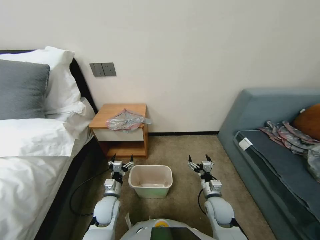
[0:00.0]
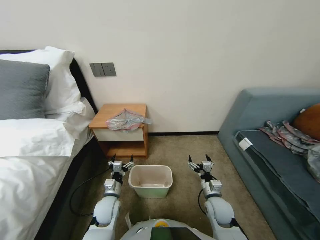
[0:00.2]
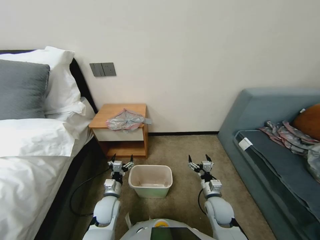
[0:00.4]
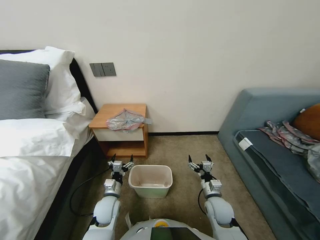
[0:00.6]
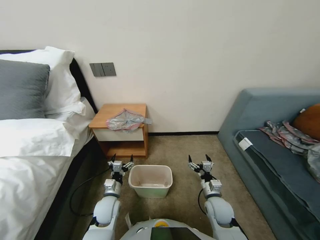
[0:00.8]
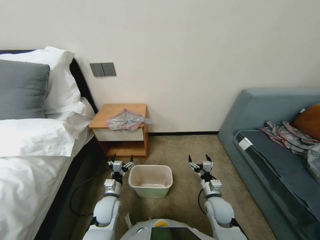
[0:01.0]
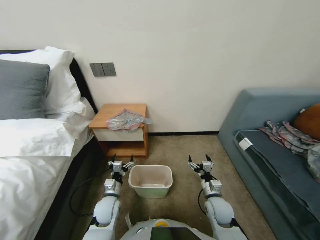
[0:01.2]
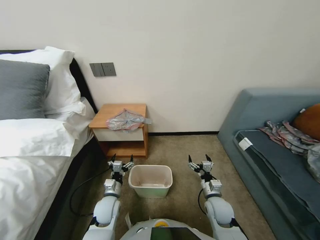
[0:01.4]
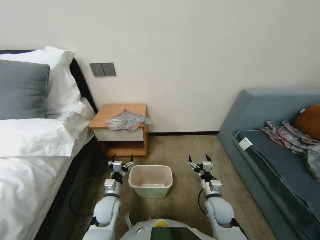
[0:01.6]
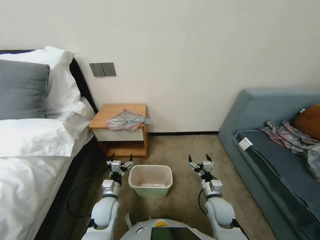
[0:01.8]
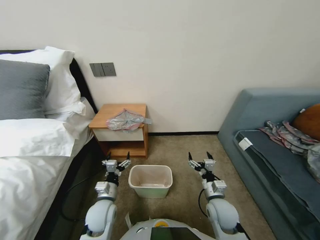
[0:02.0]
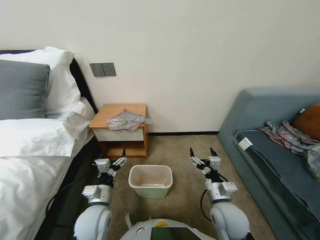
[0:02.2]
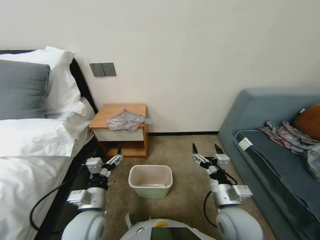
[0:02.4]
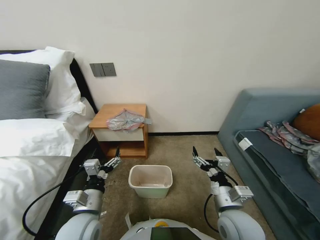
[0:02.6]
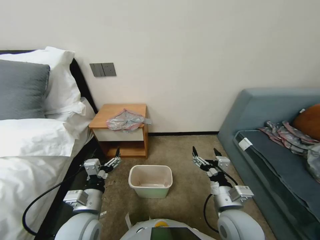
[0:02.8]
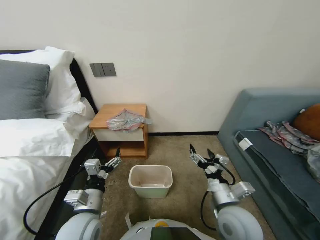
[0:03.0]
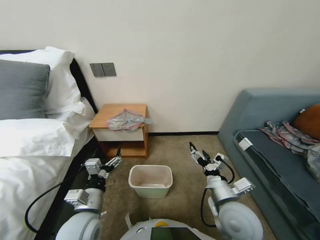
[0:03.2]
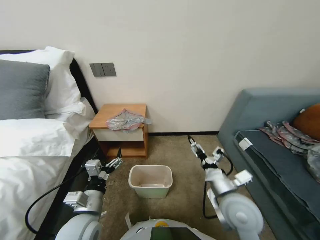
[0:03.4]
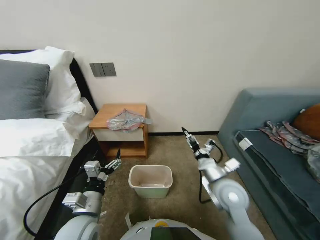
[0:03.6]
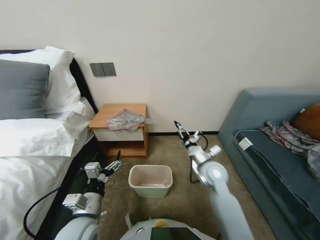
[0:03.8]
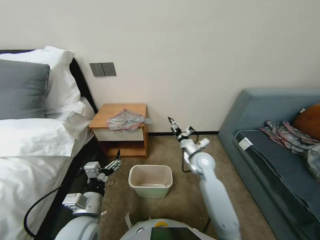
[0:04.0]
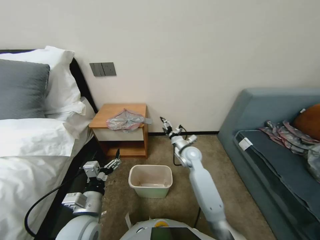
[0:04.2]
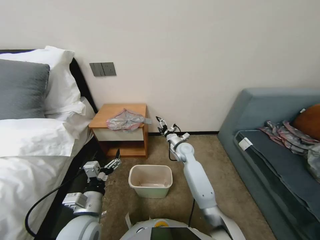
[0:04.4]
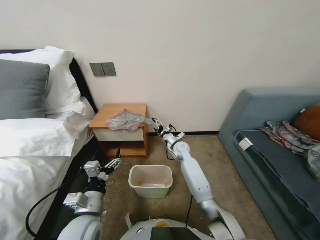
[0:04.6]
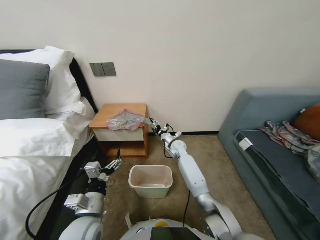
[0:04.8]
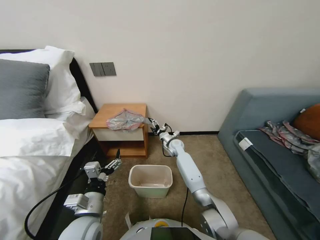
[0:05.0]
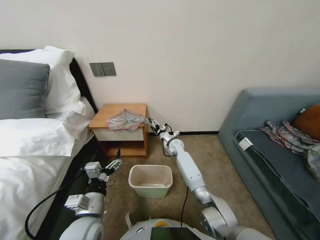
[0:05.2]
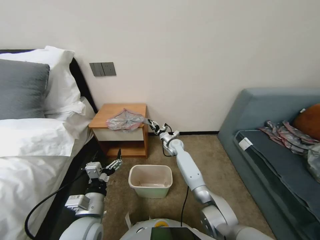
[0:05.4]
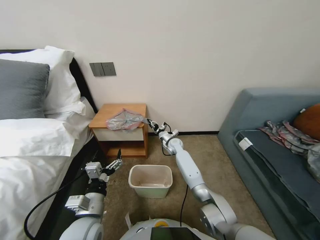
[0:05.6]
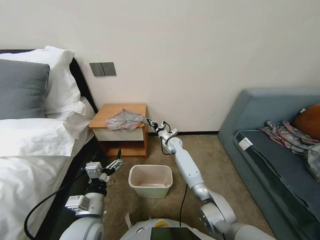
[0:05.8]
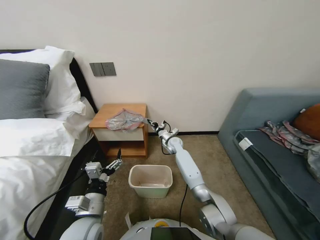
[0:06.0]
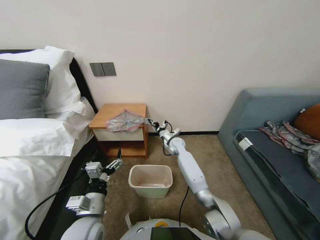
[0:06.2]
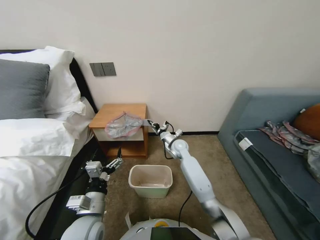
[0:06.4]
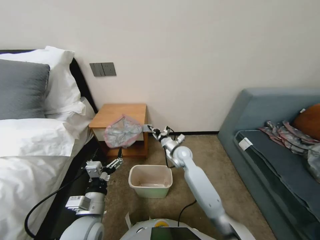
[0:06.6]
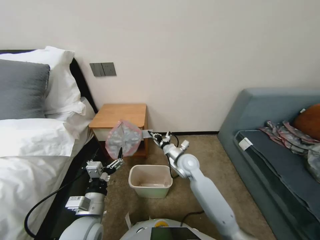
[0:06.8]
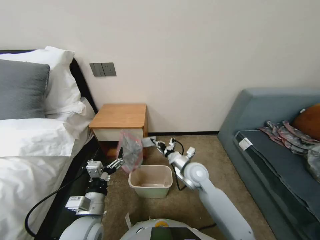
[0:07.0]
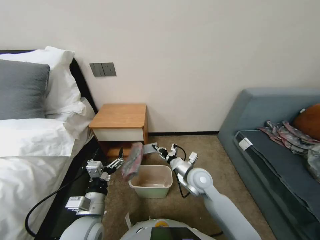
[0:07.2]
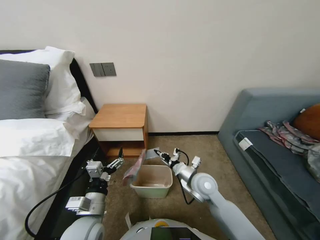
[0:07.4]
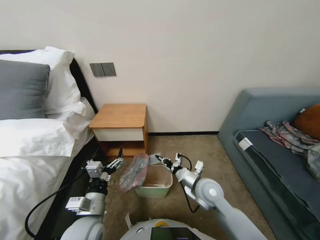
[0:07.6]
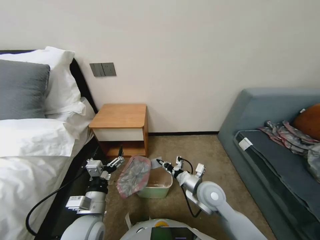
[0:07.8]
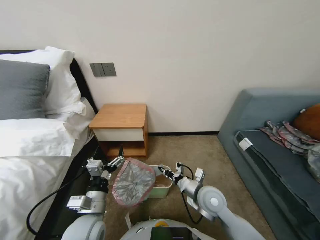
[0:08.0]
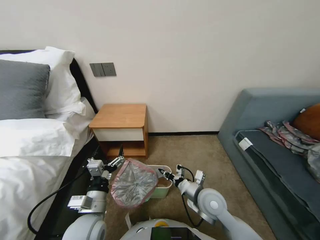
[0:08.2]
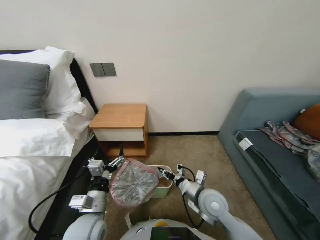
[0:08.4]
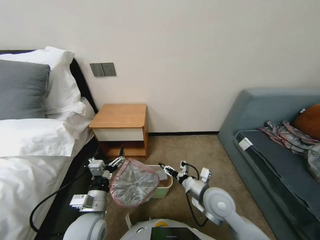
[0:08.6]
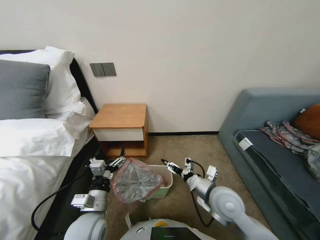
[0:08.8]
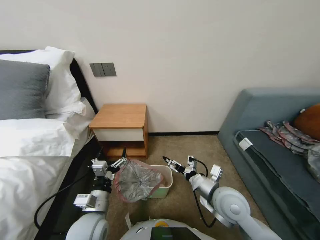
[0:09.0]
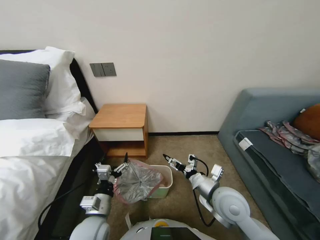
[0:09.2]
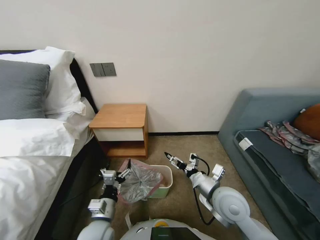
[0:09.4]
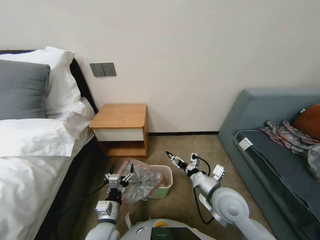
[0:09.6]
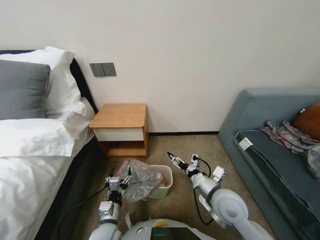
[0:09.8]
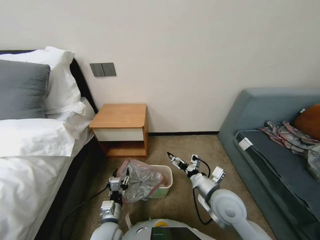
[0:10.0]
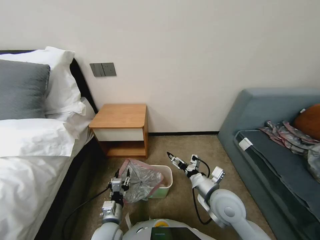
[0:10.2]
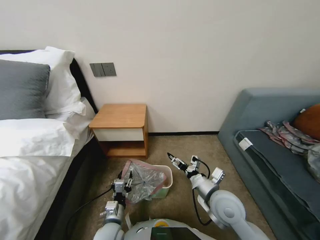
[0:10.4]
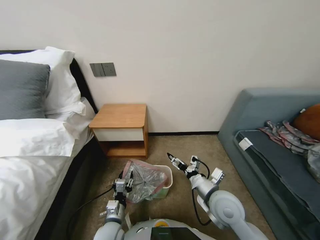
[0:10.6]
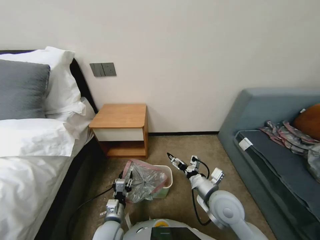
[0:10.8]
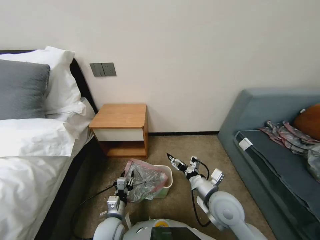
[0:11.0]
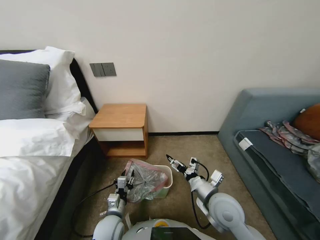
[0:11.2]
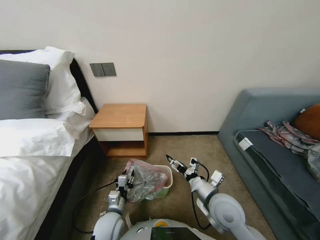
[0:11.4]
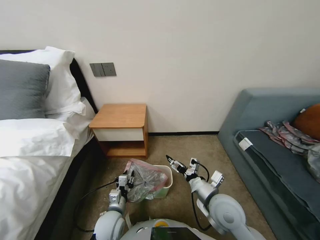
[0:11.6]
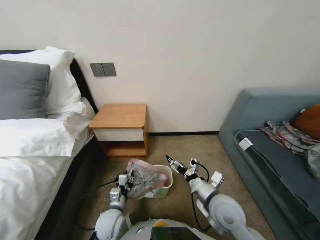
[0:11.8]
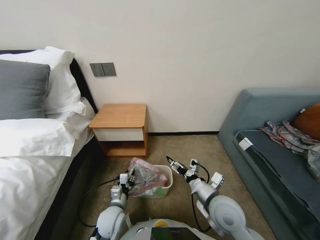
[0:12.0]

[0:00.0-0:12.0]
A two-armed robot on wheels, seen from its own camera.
Task of the whole recording: Pick up the garbage bag from the table and place it over the trash can.
0:01.6 to 0:03.0: Both grippers travel together upward and backward, roughly 15 cm.
0:03.0 to 0:04.4: The right gripper goes approximately 30 cm forward.
0:04.4 to 0:06.0: The right gripper shifts roughly 10 cm forward, and closes.
0:06.0 to 0:07.6: The right gripper goes about 25 cm backward.
0:07.6 to 0:09.0: The right gripper heads backward, covering about 5 cm, and opens its fingers.
0:09.0 to 0:10.4: The left gripper goes about 10 cm downward, and closes.
0:10.4 to 0:12.0: The grippers make only small movements.

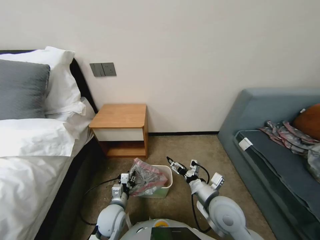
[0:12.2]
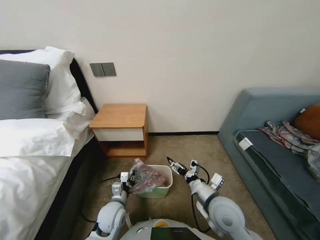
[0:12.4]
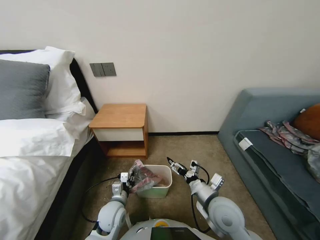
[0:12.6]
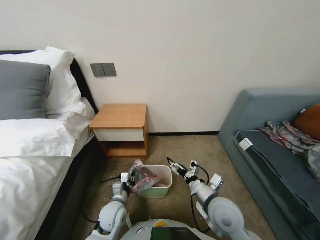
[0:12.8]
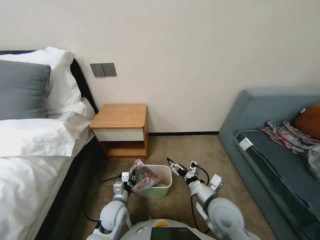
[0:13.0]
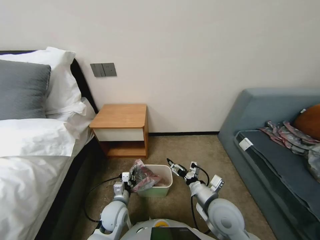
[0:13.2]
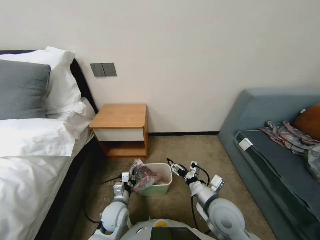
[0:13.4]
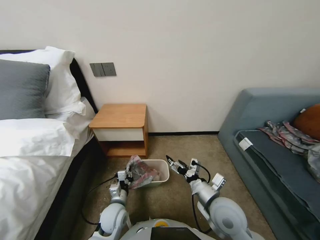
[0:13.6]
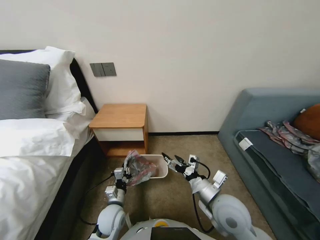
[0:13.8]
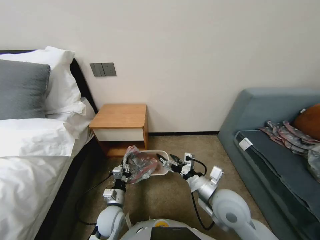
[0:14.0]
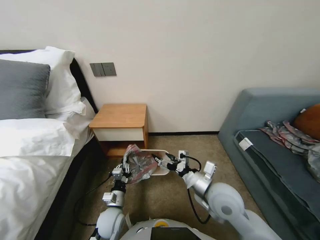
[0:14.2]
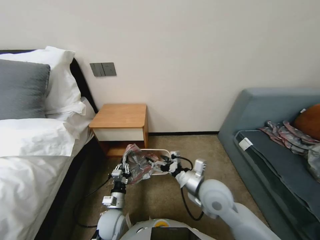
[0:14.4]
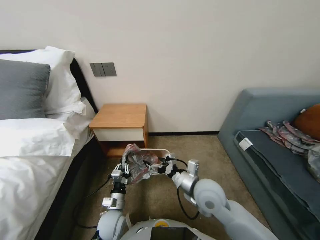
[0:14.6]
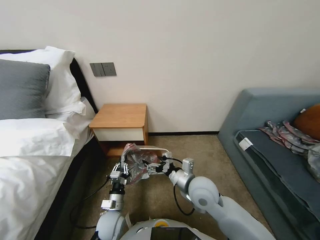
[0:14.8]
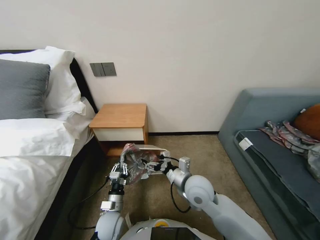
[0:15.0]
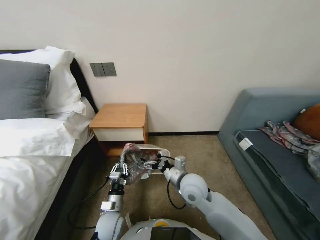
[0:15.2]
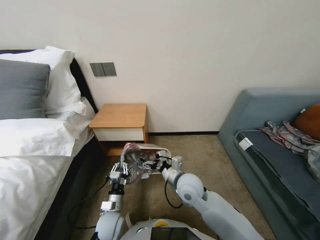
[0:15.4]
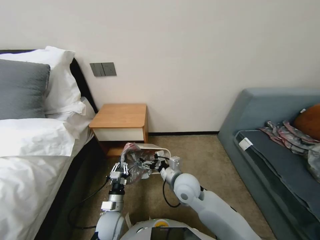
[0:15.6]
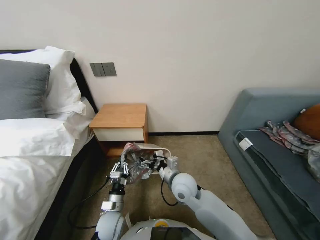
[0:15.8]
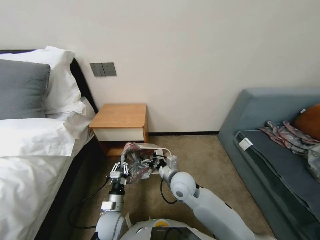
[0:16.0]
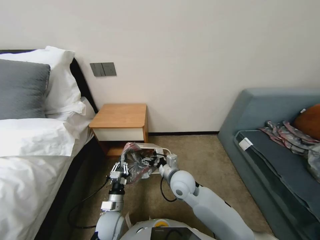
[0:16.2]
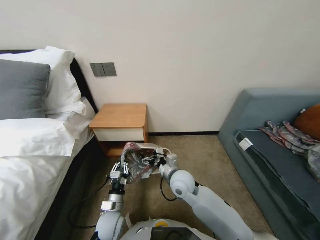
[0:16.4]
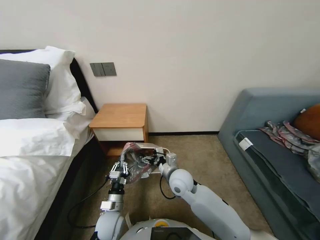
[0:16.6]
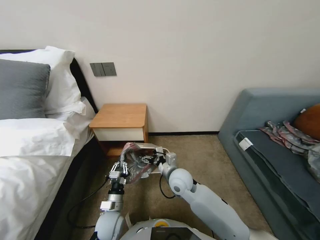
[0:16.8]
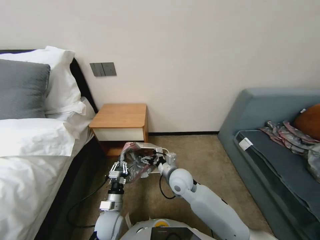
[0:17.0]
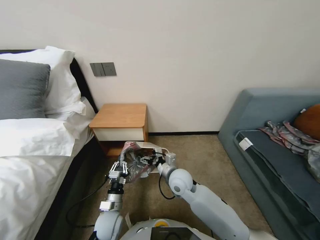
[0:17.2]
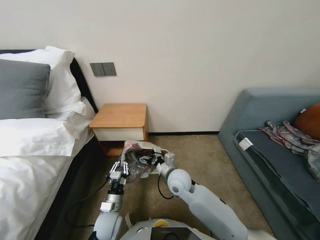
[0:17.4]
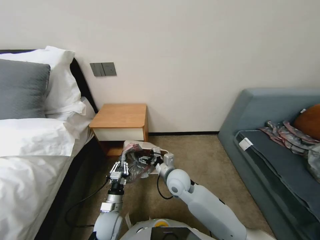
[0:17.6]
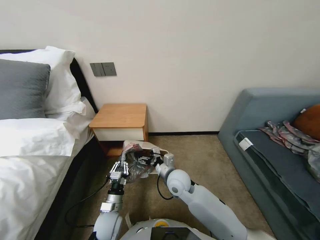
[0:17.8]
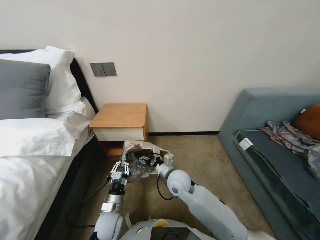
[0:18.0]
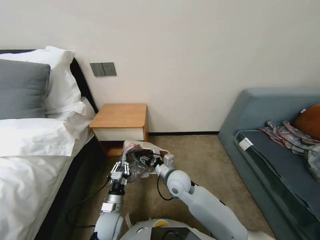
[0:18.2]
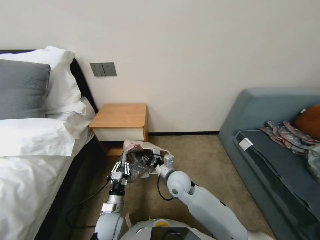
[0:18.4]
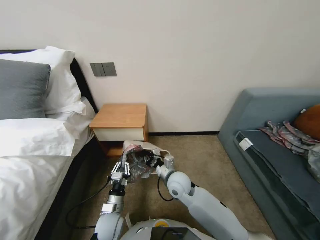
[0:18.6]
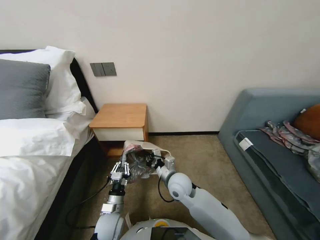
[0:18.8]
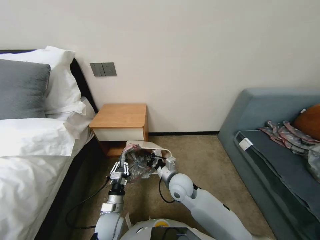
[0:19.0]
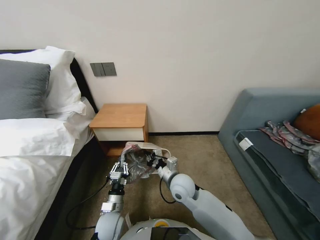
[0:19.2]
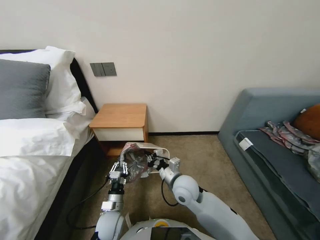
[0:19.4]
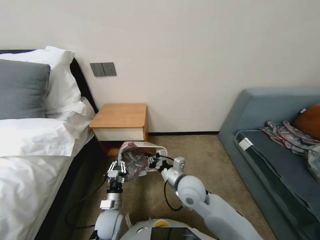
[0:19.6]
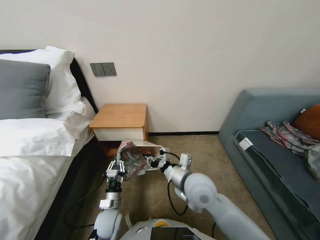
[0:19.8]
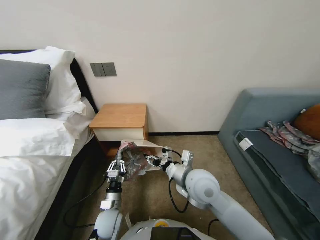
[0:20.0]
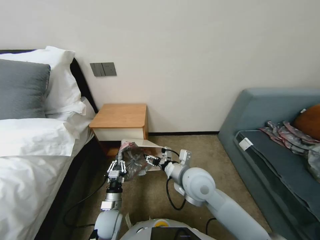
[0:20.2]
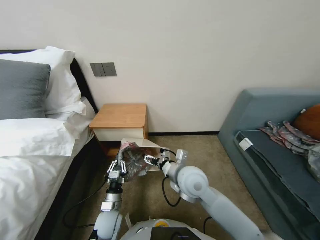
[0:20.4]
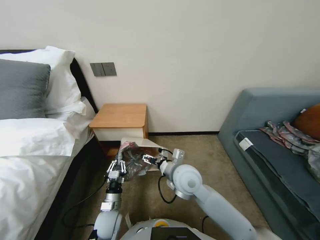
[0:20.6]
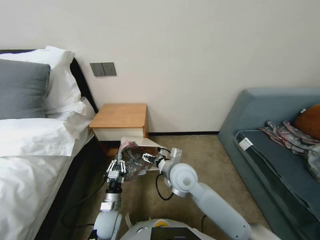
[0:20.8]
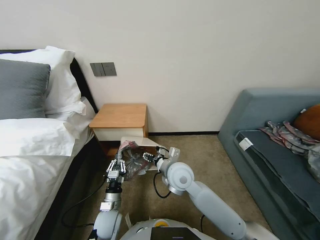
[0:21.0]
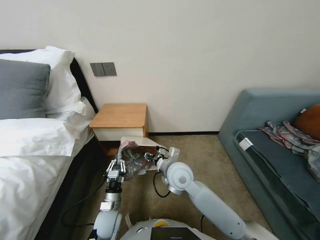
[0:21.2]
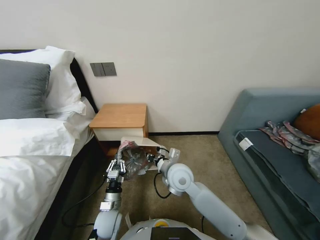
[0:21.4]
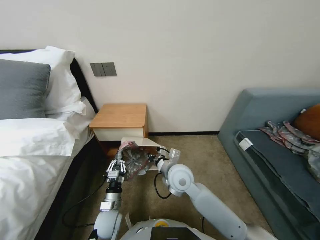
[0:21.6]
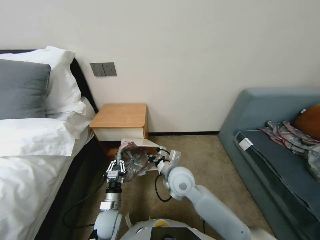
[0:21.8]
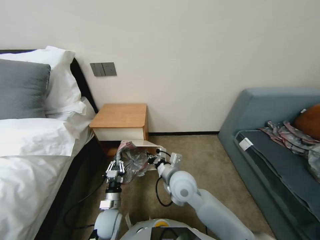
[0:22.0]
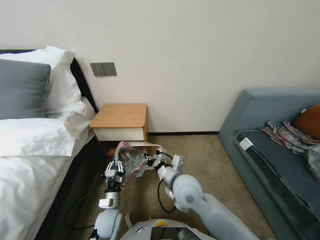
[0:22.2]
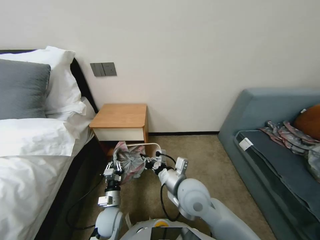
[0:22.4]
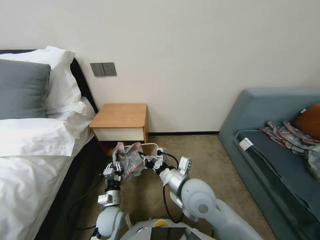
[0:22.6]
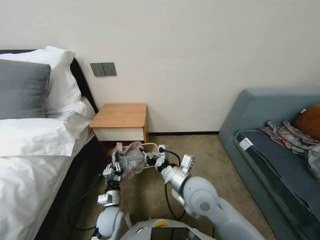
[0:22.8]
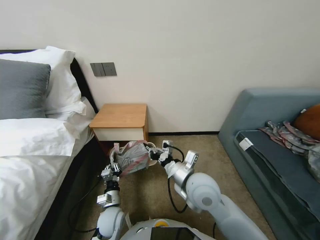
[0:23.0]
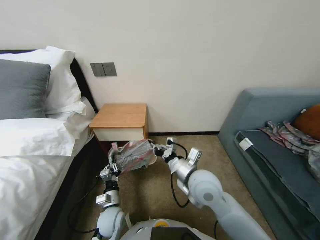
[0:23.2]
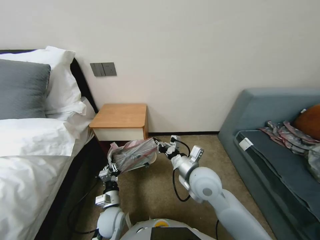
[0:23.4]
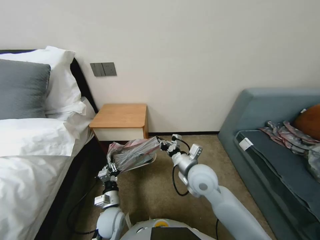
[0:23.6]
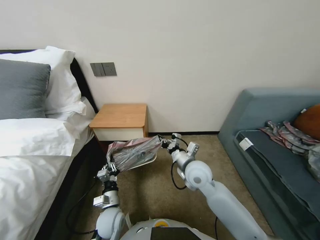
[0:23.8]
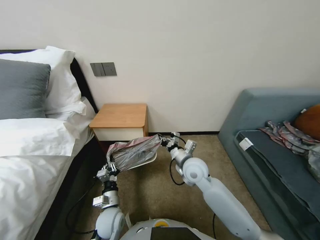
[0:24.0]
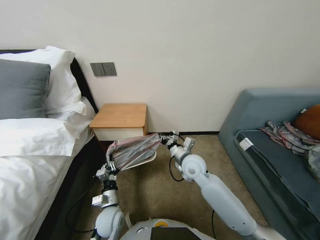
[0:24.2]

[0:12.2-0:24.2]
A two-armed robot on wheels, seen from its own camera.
Task of the whole recording: Pick up the garbage bag from the table and place it over the trash can.
0:12.2 to 0:13.8: The grippers make only small movements.
0:13.8 to 0:15.2: The right gripper goes some 10 cm to the left and forward.
0:15.2 to 0:16.6: The right gripper shifts by some 5 cm.
0:16.6 to 0:18.2: The grippers stay close to where they were, moving slightly.
0:18.2 to 0:19.8: The right gripper goes approximately 5 cm upward, and closes.
0:19.8 to 0:21.2: The right gripper changes place by about 5 cm, and opens up.
0:21.2 to 0:22.6: The right gripper shifts approximately 5 cm backward, and closes.
0:22.6 to 0:24.2: The right gripper moves forward, approximately 10 cm.
